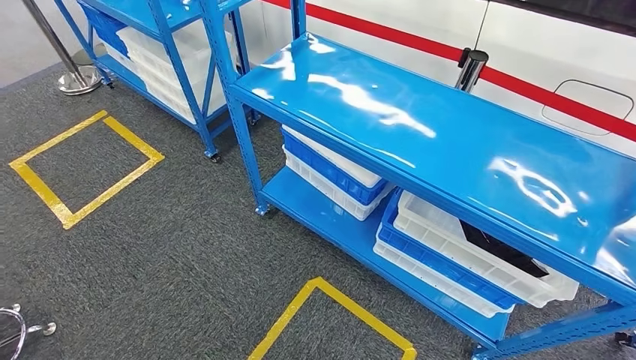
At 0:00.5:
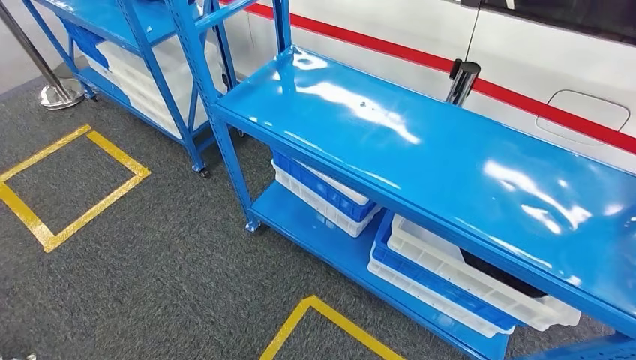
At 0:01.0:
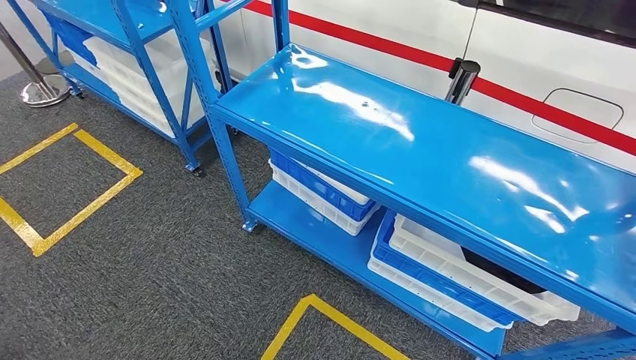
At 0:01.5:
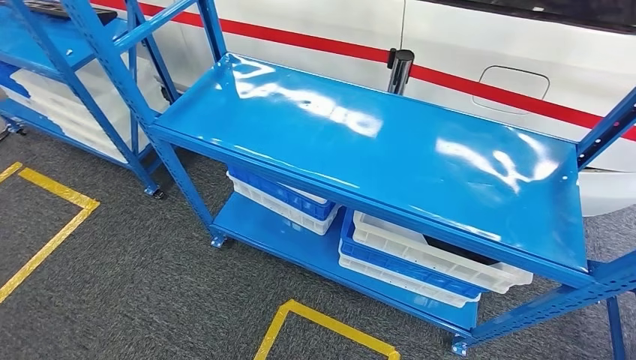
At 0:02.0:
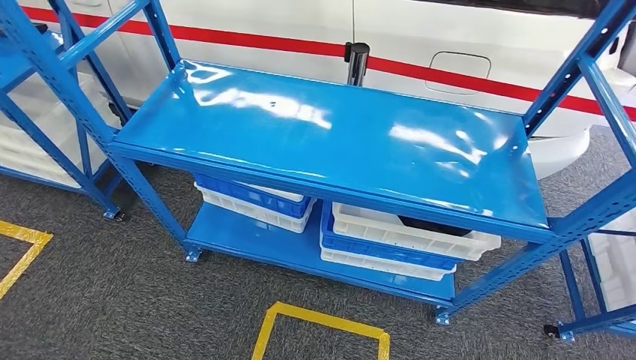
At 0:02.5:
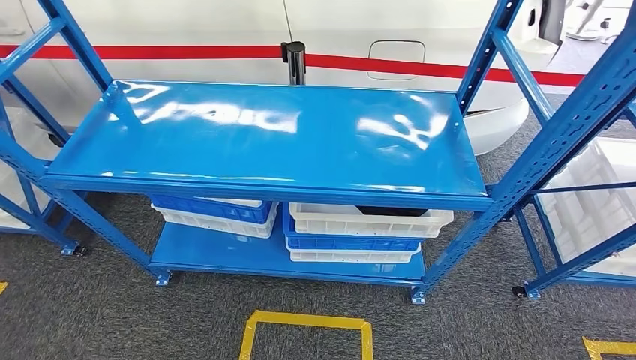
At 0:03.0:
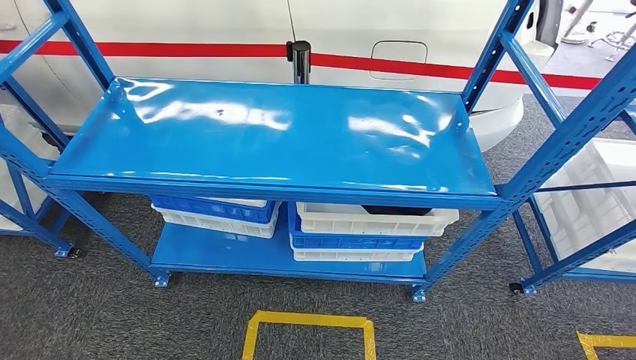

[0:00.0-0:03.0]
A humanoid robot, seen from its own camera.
Step, 0:00.0 to 0:03.0: Move to the initial position of the shelf.
